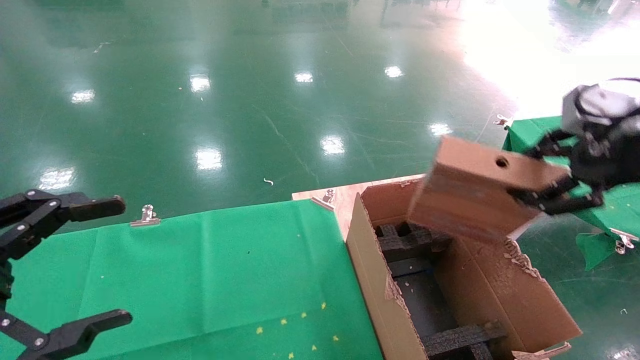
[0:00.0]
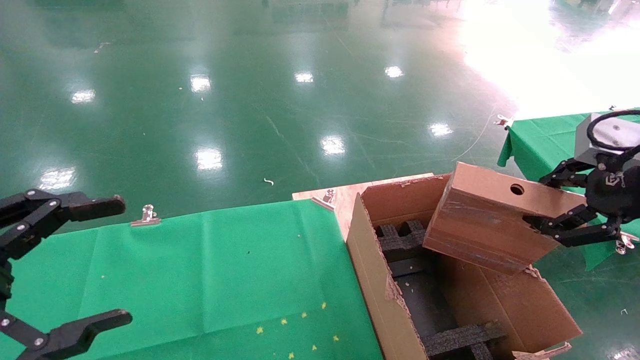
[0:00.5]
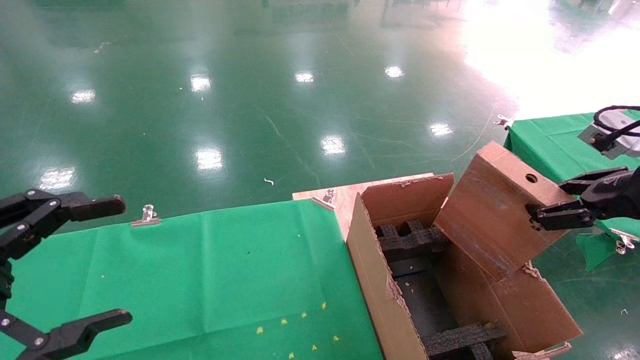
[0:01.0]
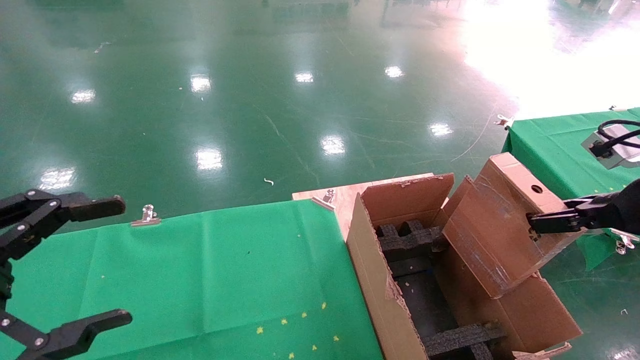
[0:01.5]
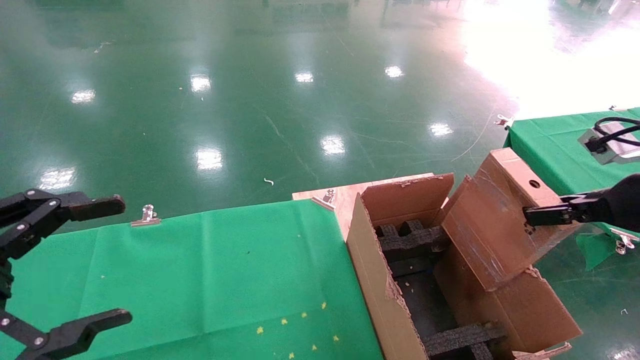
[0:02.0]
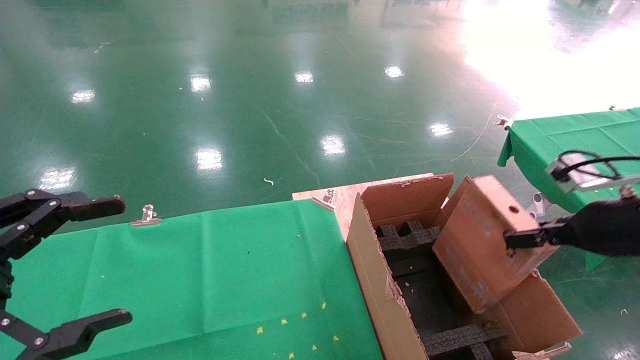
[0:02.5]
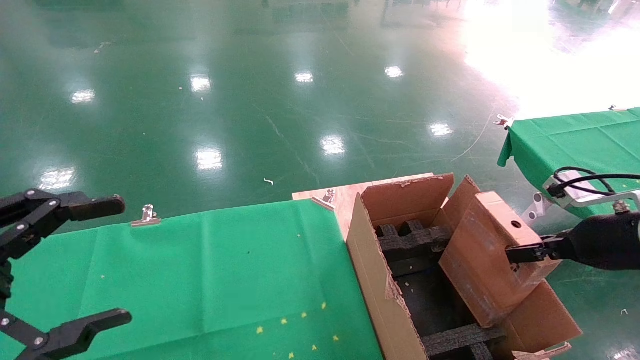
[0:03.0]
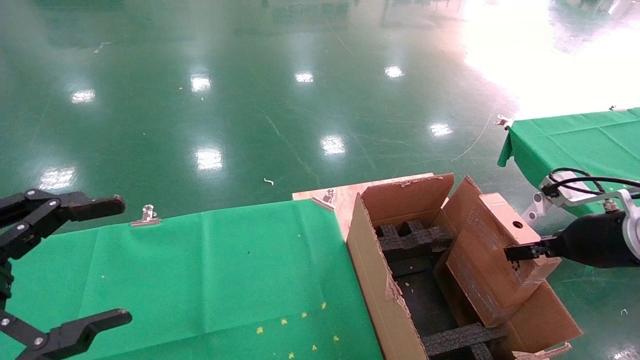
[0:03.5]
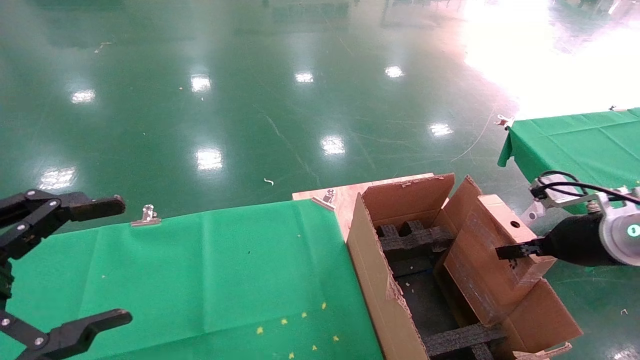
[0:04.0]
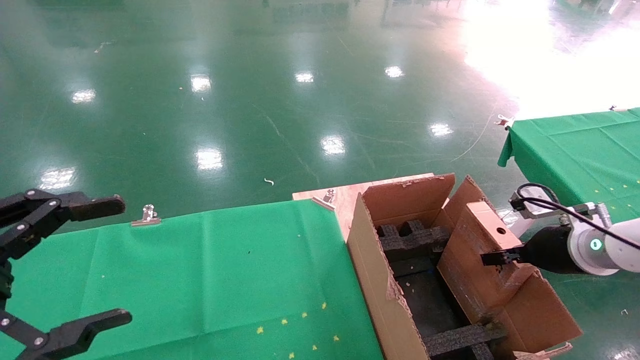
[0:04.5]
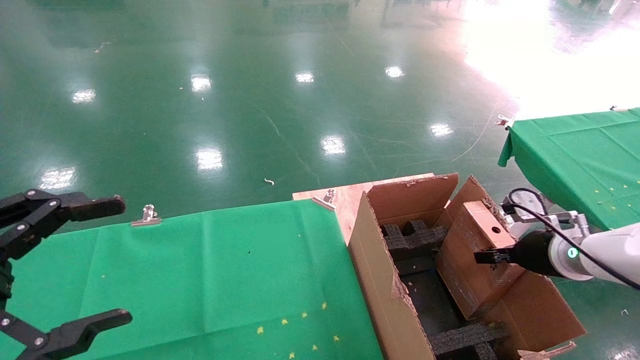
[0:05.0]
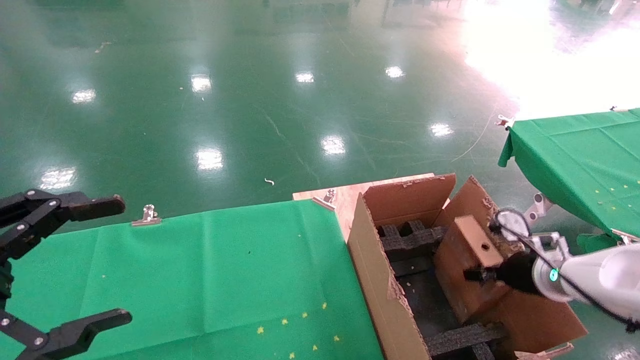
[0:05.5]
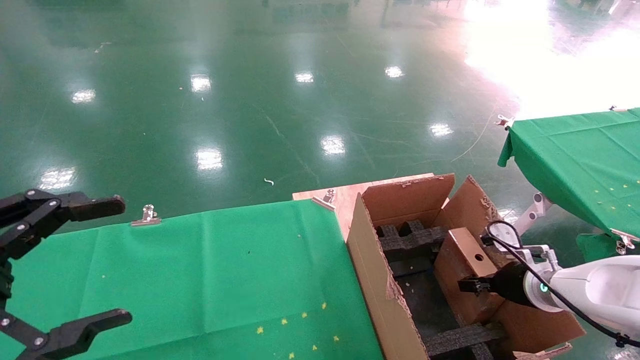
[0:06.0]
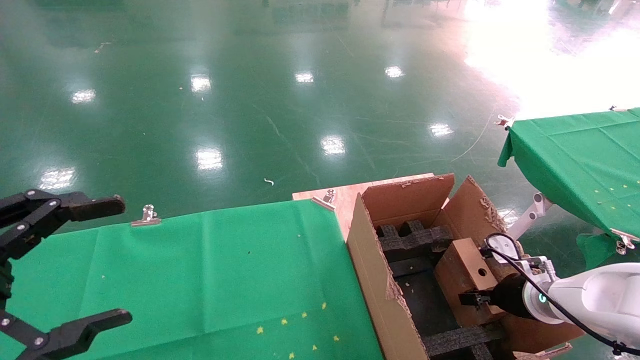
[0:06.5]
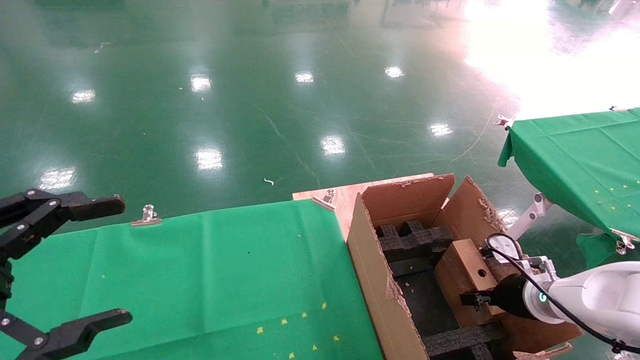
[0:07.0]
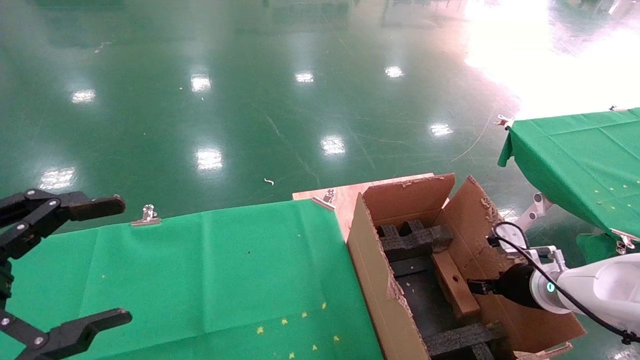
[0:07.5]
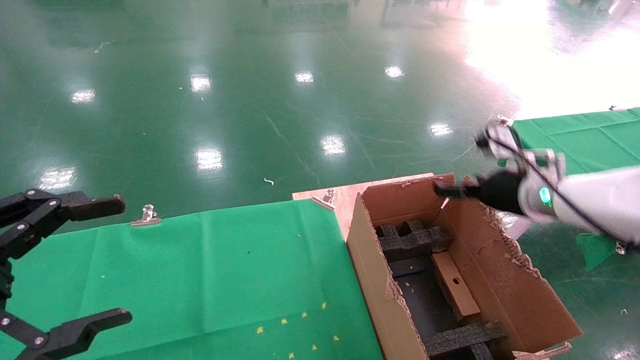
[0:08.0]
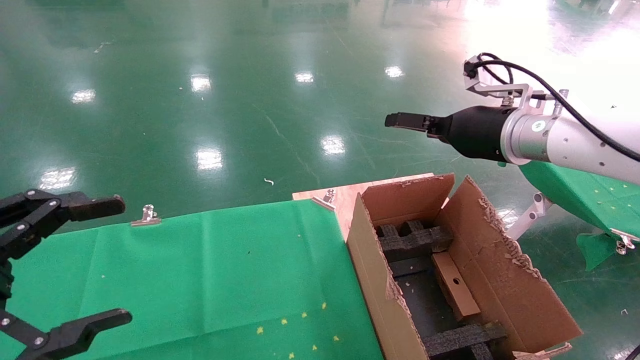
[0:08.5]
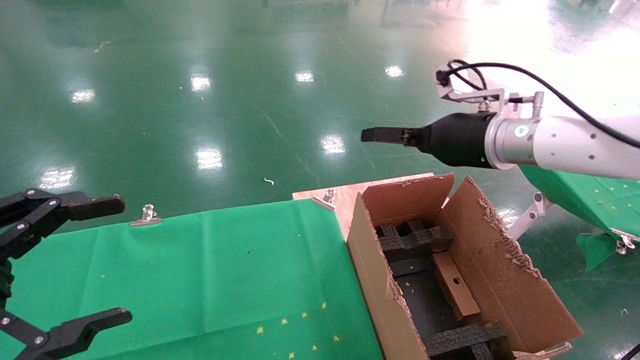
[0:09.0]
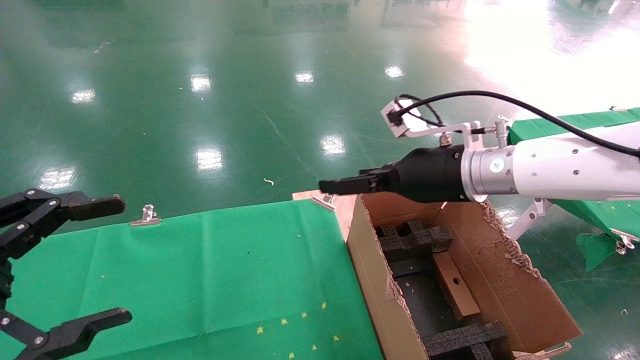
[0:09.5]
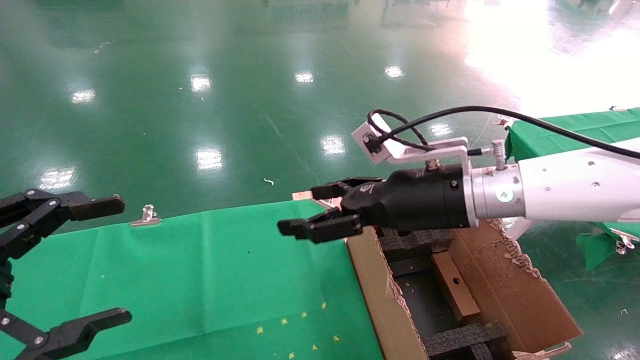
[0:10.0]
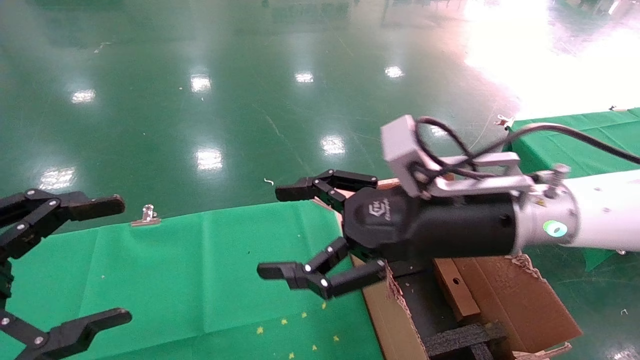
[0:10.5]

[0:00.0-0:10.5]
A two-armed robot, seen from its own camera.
Task of the whole recording: using a robotic arm to pick up a cardboard box and palace it the carton.
Step, 0:00.0 to 0:07.5: Place the mouse and the power cord paper box into the container.
0:00.0 to 0:02.0: The right gripper goes about 10 cm downward.
0:02.0 to 0:04.0: The right gripper moves downward and forward, about 10 cm.
0:04.0 to 0:06.5: The right gripper goes roughly 15 cm downward.
0:06.5 to 0:08.5: The right gripper shifts roughly 25 cm upward, and opens.
0:08.5 to 0:10.5: The right gripper heads to the left and backward, covering about 15 cm.

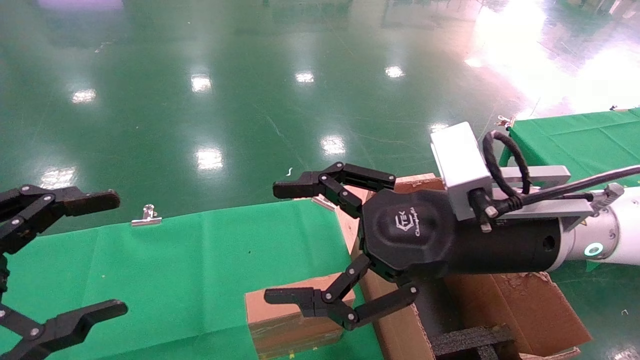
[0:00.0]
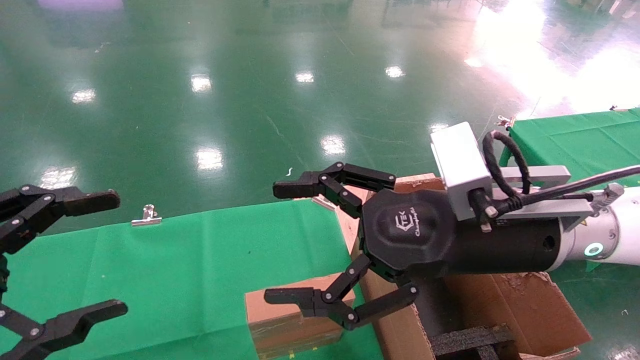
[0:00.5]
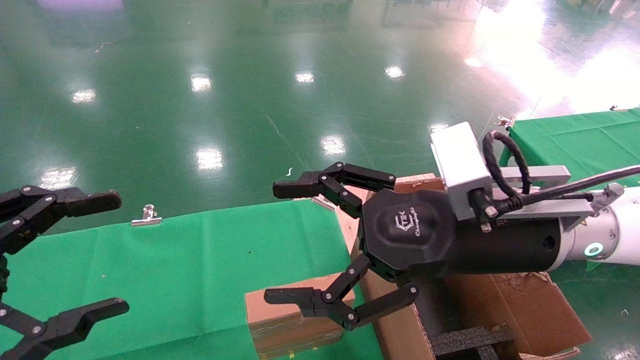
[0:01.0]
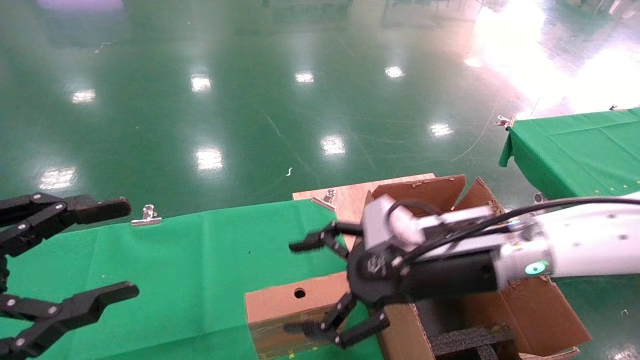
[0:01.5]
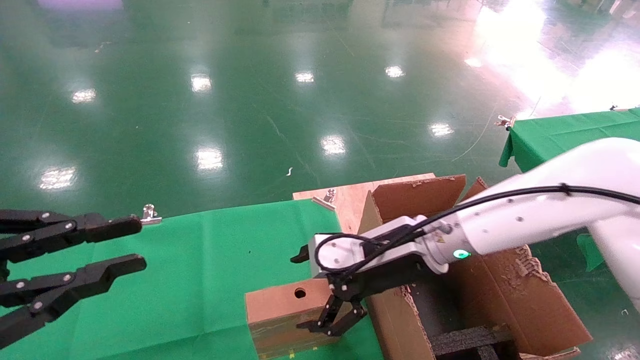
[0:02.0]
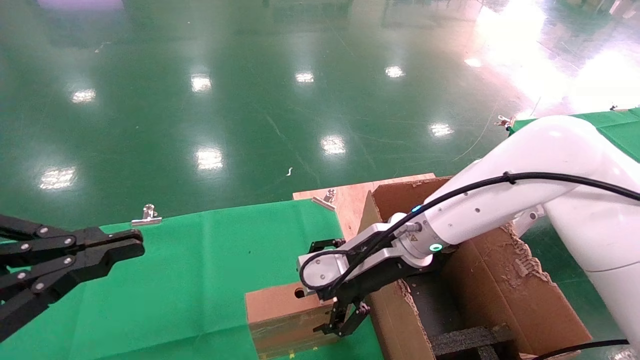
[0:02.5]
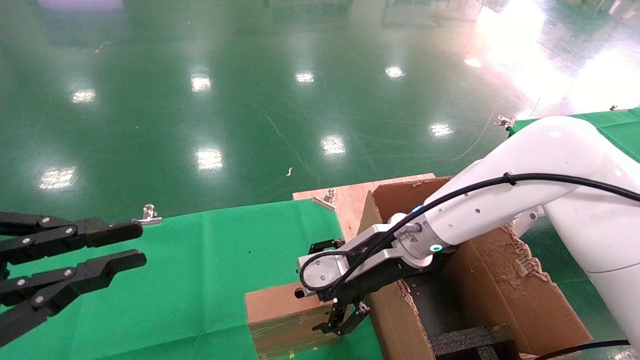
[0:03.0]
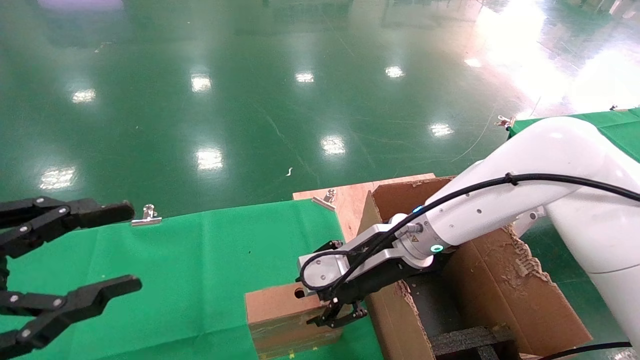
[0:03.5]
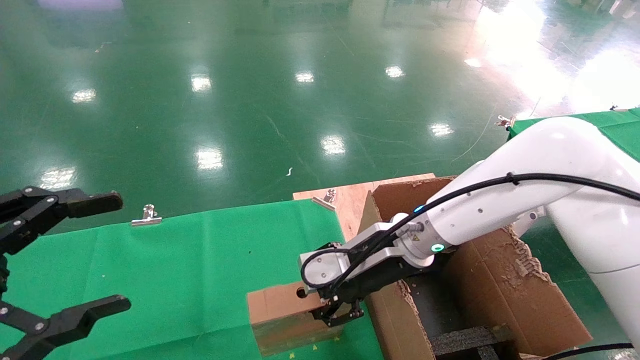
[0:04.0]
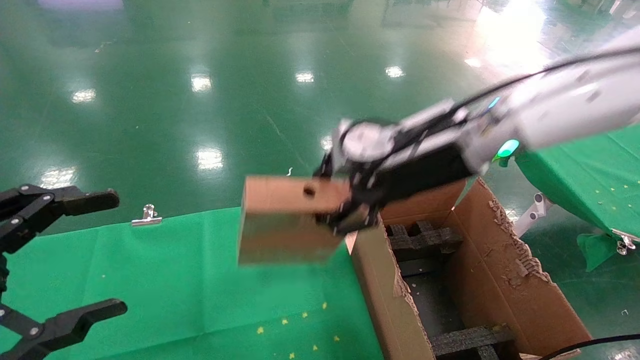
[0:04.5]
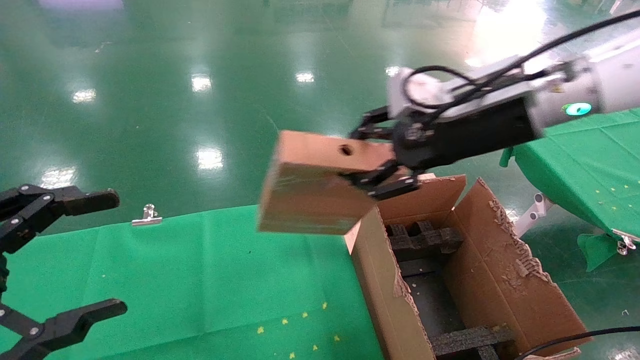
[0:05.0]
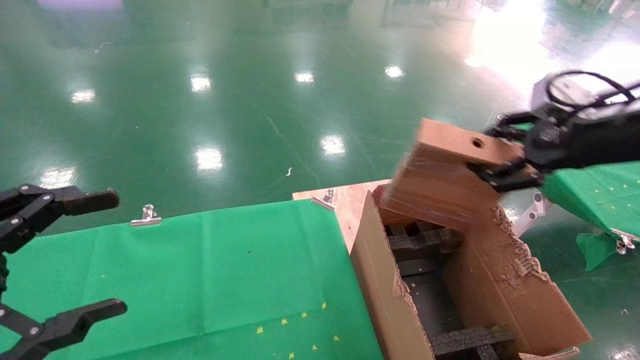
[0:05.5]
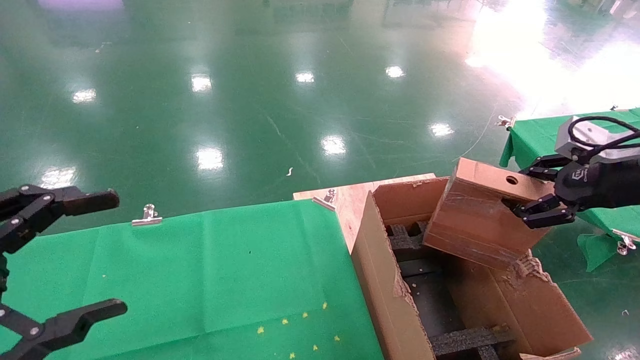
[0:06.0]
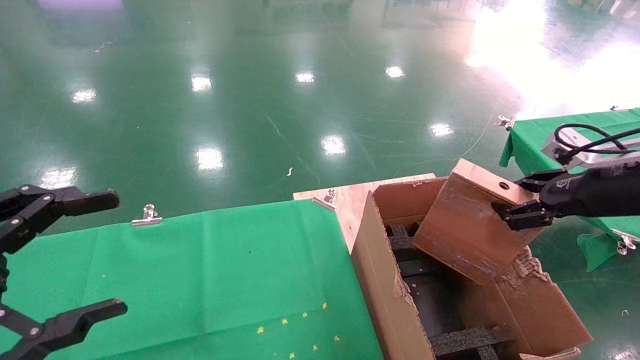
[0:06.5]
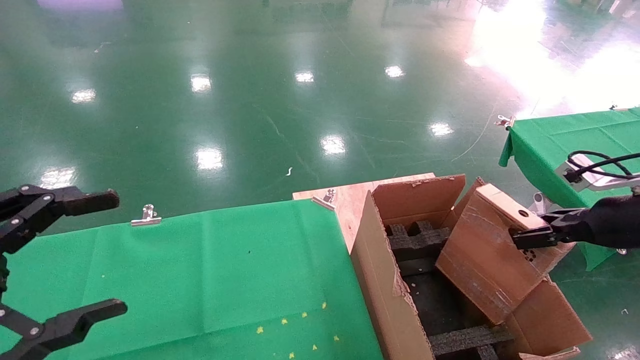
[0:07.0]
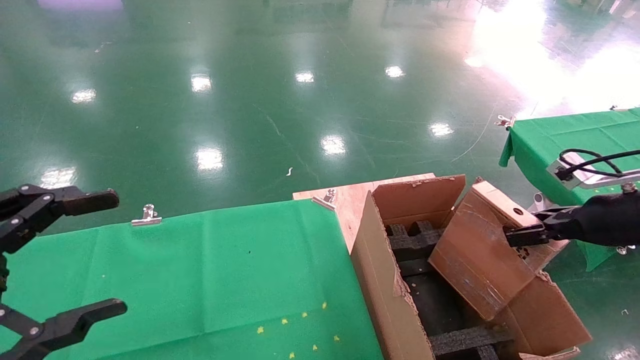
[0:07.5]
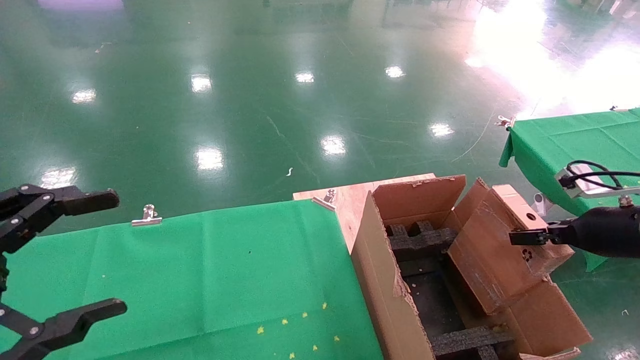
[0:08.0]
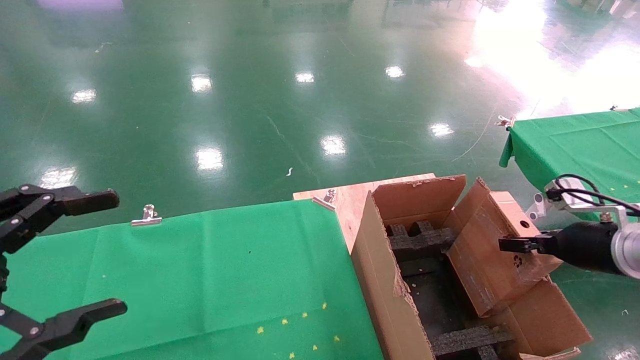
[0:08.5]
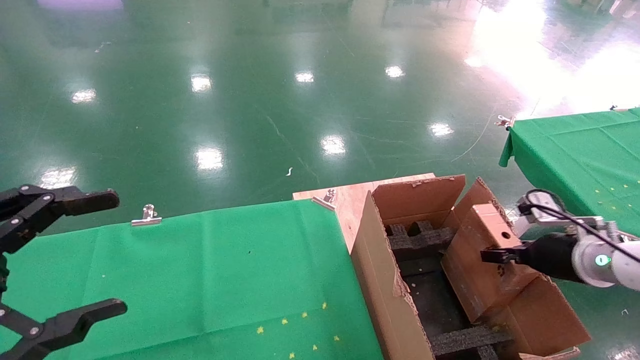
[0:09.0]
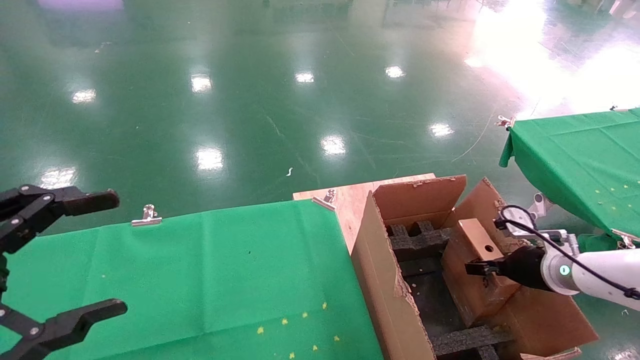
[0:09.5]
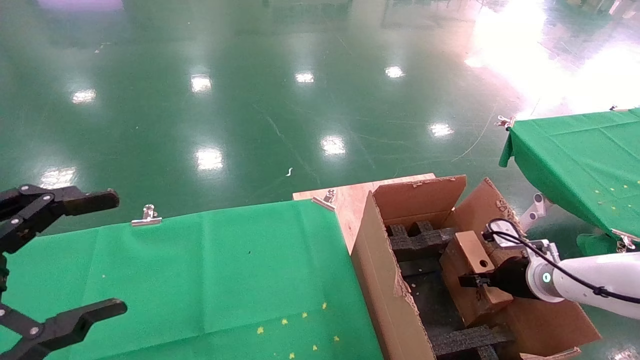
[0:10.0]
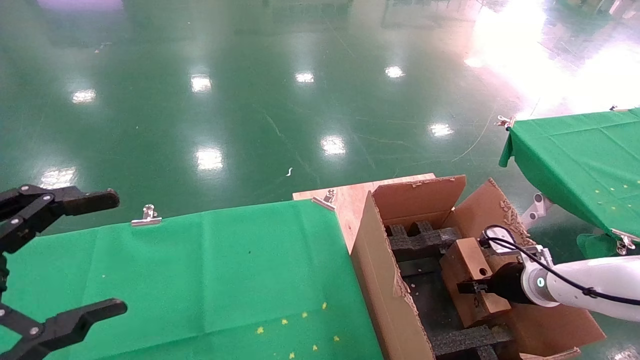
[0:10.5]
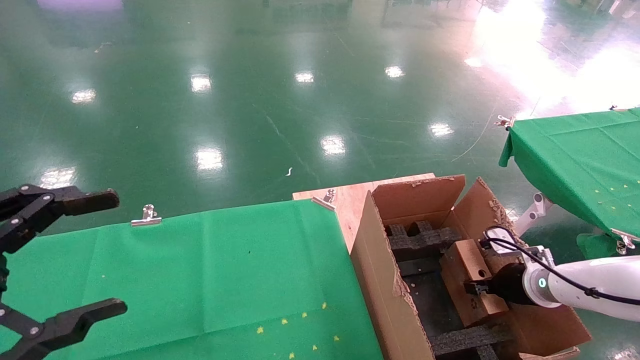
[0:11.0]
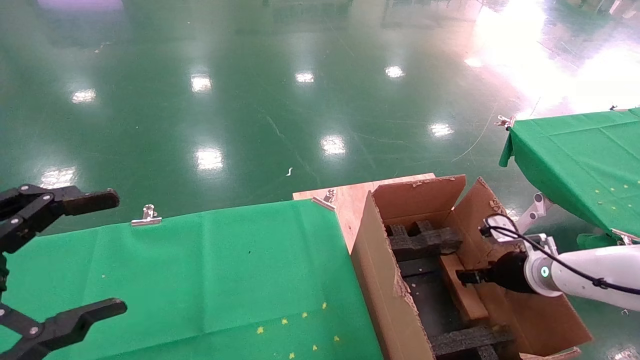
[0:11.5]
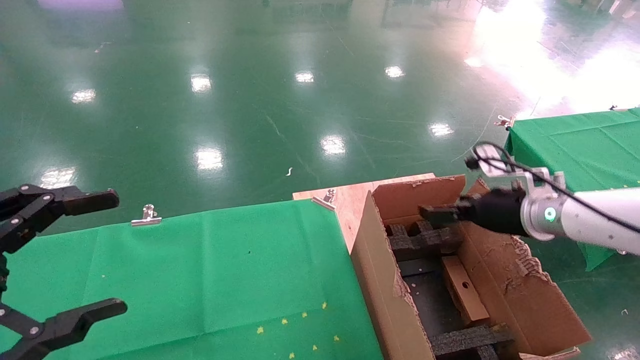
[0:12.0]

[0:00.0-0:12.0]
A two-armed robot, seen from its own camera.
Task of the whole recording: using a robotic arm to pick up a cardboard box and palace it the carton.
Step, 0:01.5 to 0:03.5: Pick up the mouse and the power cord paper box.
Step, 0:04.0 to 0:12.0: Place the mouse and the power cord paper box into the container.
0:00.0 to 0:02.0: The left gripper closes up, while the right gripper heads forward and downward, covering roughly 10 cm.
0:02.0 to 0:04.0: The left gripper opens up. Meanwhile the right gripper closes its fingers.
0:04.0 to 0:06.0: The right gripper goes about 30 cm to the right.
0:06.0 to 0:08.0: The right gripper moves downward, some 10 cm.
0:08.0 to 0:10.0: The right gripper moves downward, forward and to the left, roughly 15 cm.
0:10.0 to 0:12.0: The right gripper goes about 15 cm upward and to the left, and opens its fingers.
